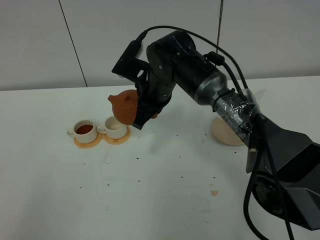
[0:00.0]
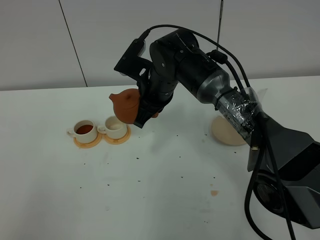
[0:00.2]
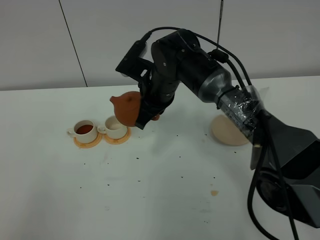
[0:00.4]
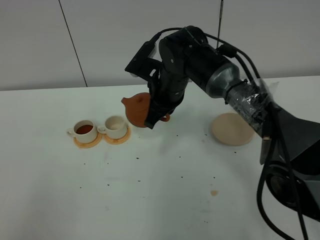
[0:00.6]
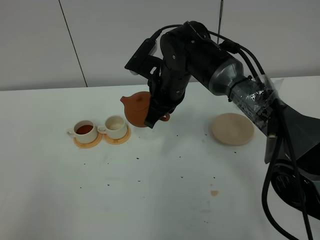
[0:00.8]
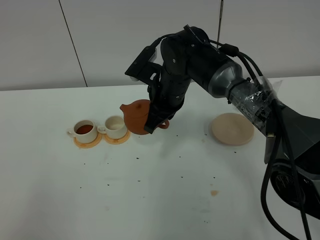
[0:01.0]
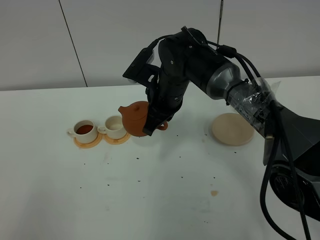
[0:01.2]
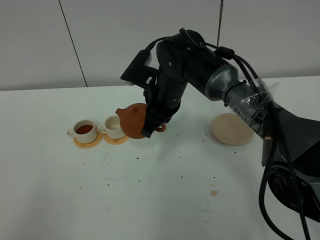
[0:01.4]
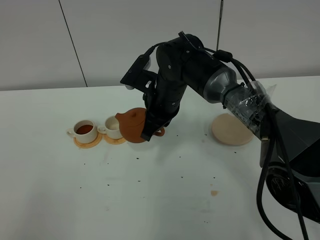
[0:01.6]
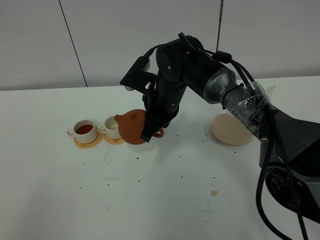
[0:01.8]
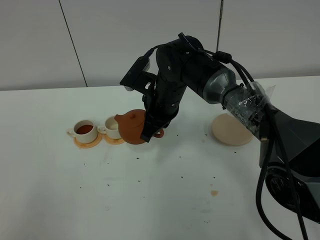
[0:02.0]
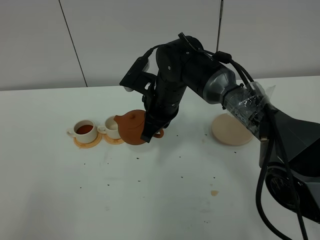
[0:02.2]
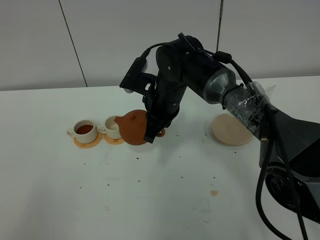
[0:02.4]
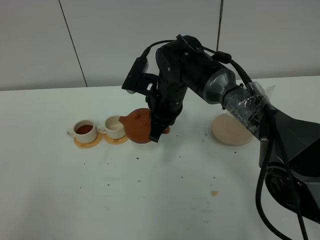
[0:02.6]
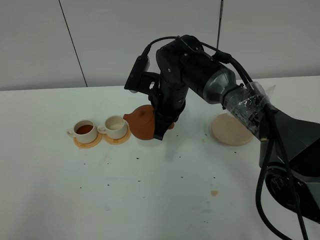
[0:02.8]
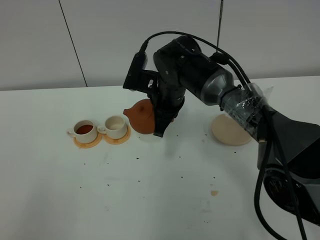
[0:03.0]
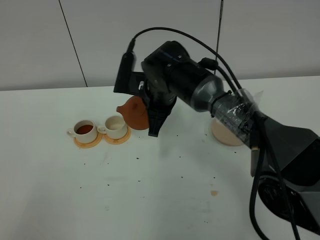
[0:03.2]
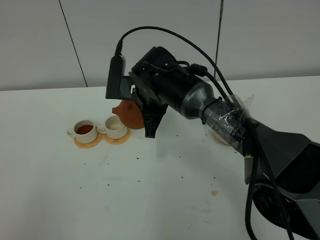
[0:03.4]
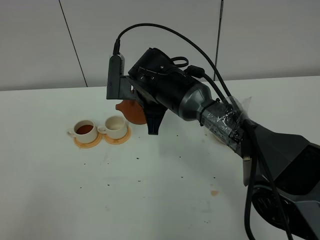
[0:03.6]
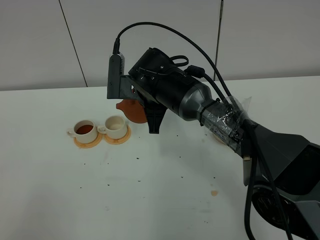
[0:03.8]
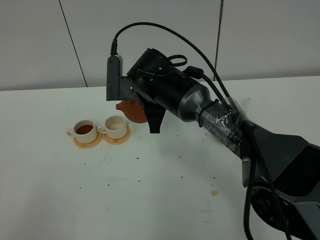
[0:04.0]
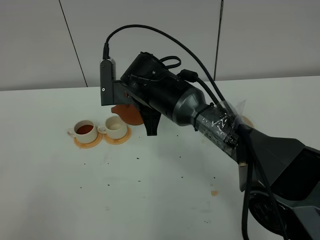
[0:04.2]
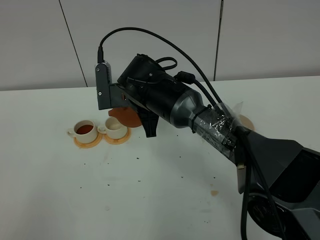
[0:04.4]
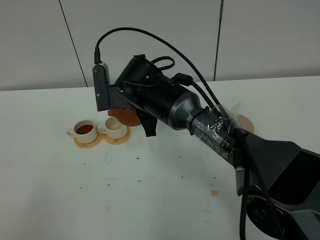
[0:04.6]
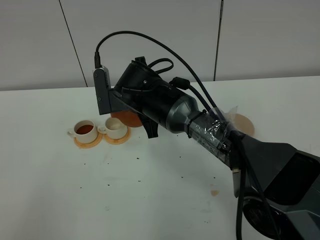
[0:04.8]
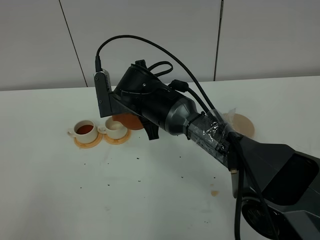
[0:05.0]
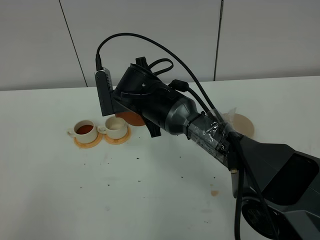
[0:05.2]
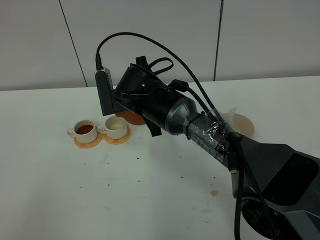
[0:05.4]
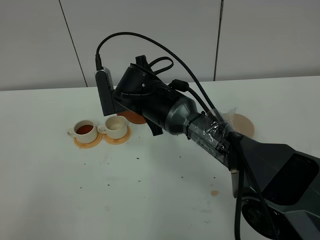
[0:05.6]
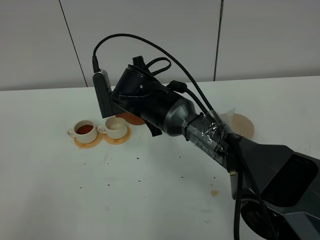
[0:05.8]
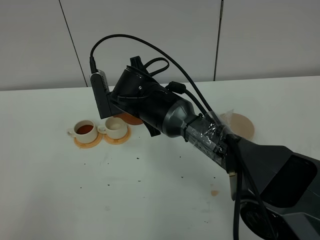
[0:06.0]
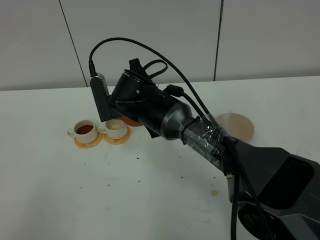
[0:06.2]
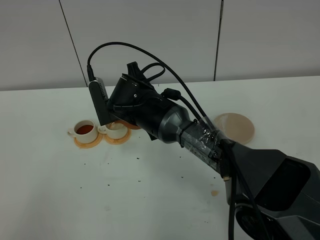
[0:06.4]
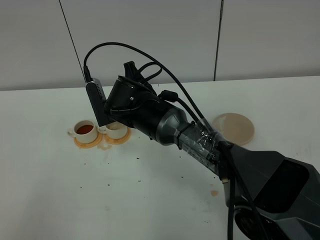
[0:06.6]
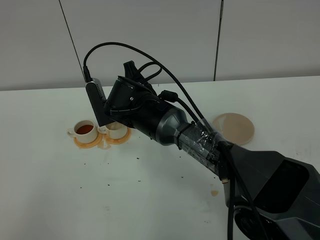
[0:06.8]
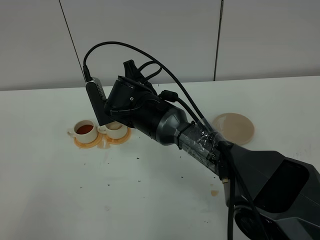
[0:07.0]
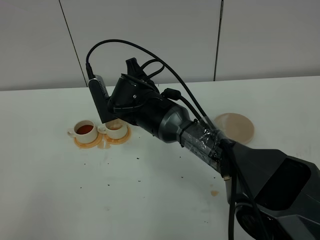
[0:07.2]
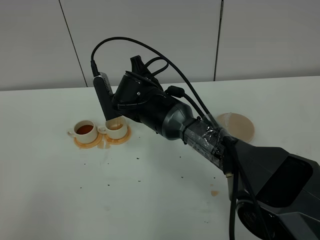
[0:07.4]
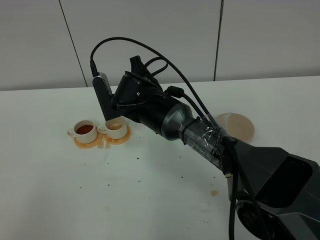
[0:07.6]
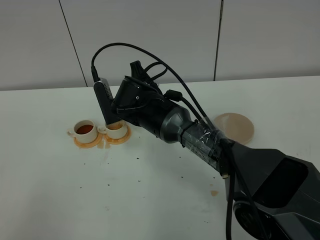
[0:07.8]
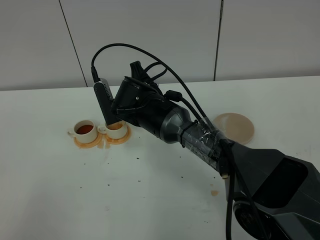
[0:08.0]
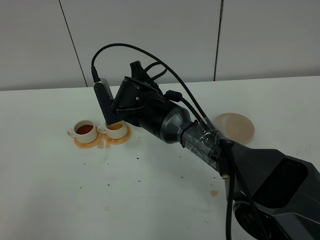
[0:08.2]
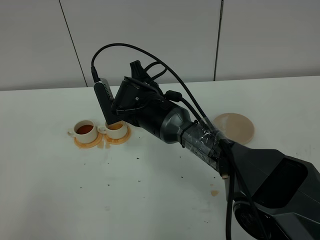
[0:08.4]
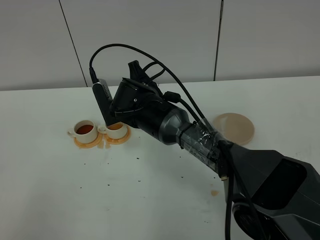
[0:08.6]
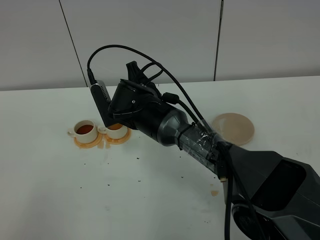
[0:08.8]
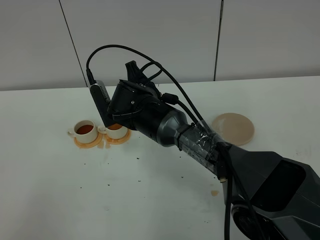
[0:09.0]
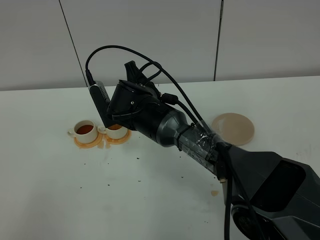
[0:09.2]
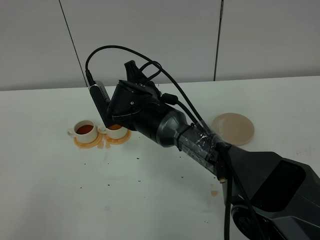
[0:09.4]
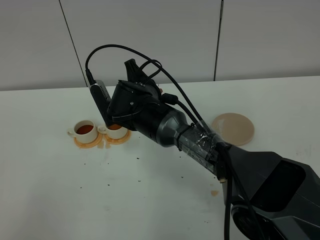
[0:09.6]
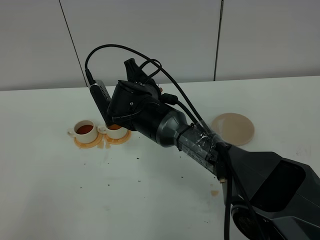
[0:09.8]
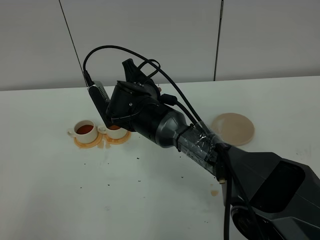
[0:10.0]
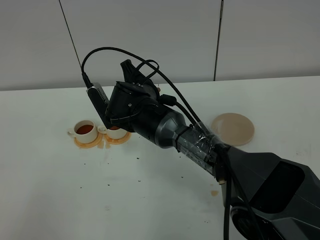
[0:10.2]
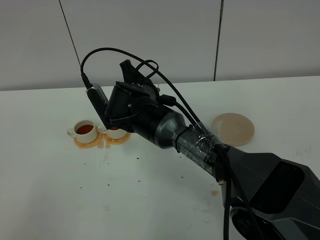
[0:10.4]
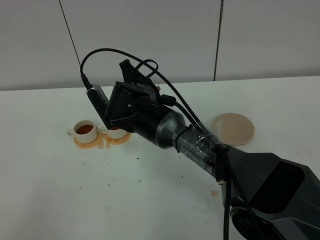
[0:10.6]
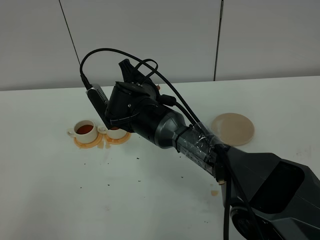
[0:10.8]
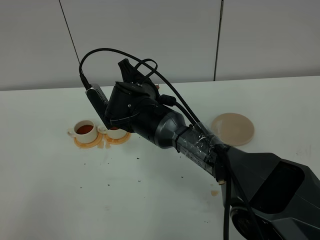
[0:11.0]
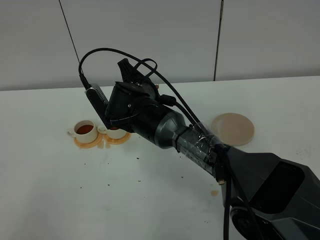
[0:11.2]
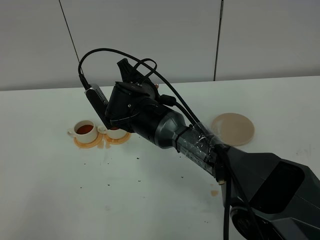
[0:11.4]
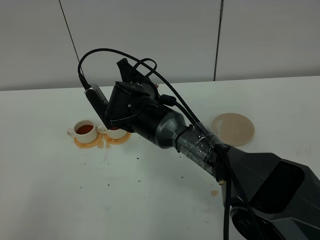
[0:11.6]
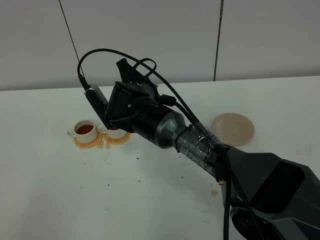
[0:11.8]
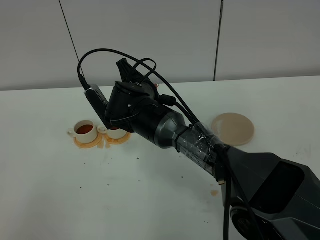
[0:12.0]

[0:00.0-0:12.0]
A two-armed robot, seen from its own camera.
Task of the whole recording: grasp the brown teapot and pour the tea into the two white teacups one by one, put the brown teapot back in its original place.
0:00.0 to 0:03.0: There are only small adjustments of the grippers.
0:03.0 to 0:04.4: The right gripper shifts by some 5 cm.
0:04.4 to 0:07.6: The grippers move only a little.
0:07.6 to 0:09.0: Neither gripper changes place.
0:09.0 to 0:10.4: The grippers move only a little.
0:10.4 to 0:12.0: Both grippers stay about where they are.

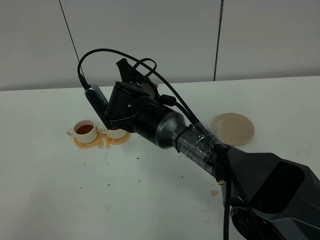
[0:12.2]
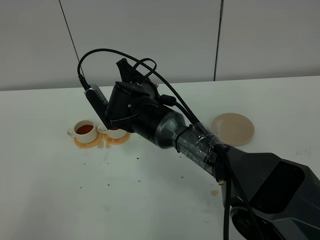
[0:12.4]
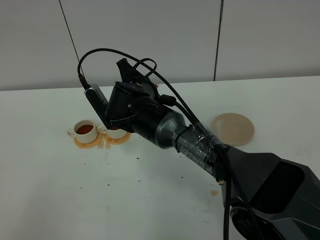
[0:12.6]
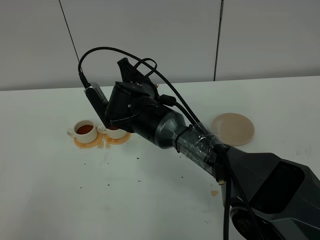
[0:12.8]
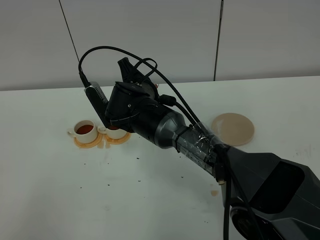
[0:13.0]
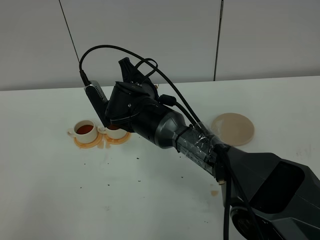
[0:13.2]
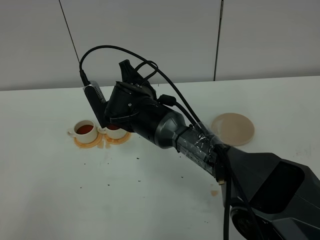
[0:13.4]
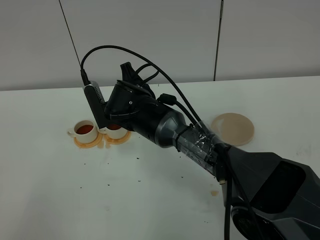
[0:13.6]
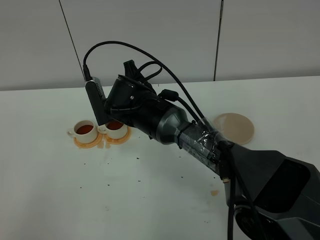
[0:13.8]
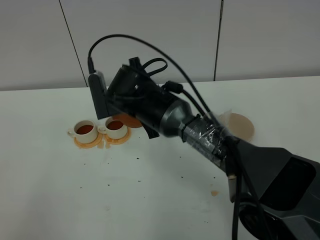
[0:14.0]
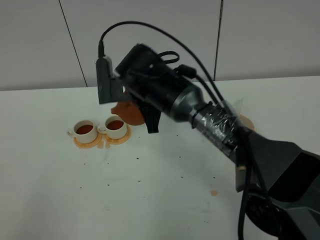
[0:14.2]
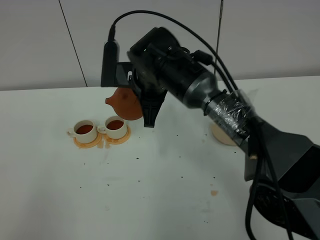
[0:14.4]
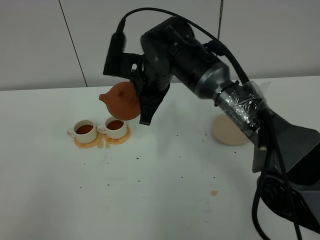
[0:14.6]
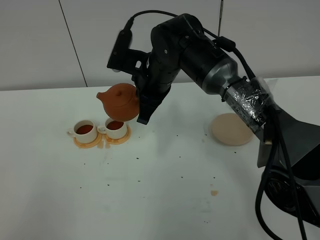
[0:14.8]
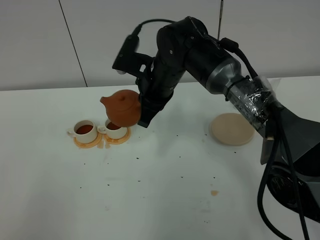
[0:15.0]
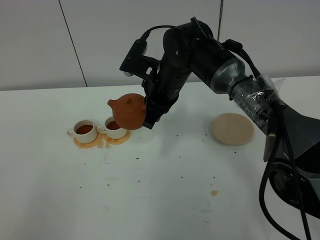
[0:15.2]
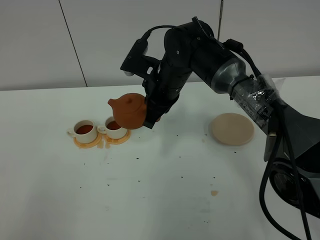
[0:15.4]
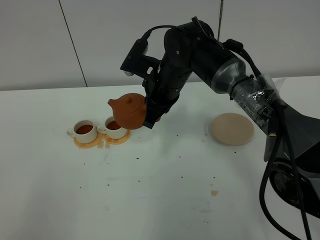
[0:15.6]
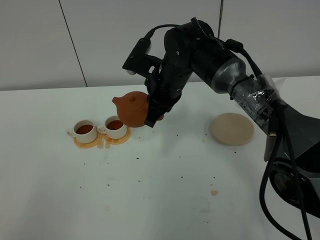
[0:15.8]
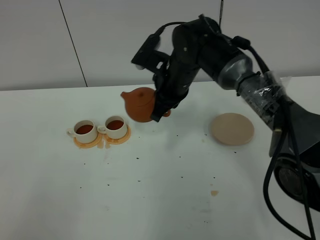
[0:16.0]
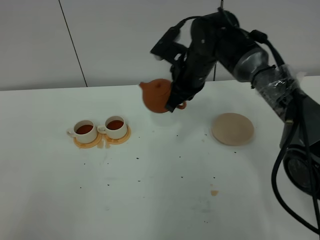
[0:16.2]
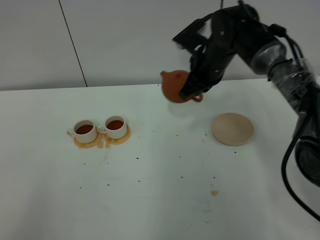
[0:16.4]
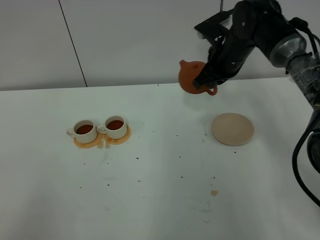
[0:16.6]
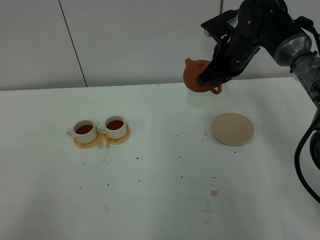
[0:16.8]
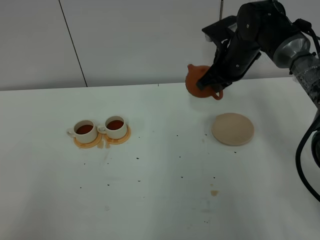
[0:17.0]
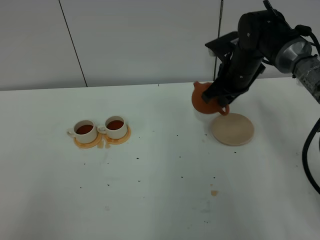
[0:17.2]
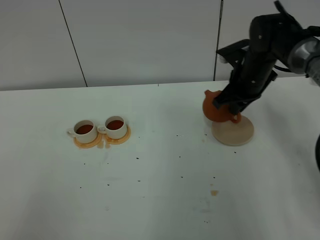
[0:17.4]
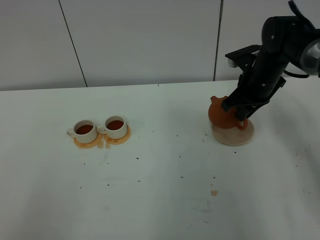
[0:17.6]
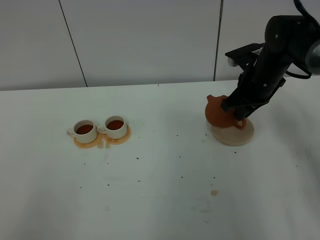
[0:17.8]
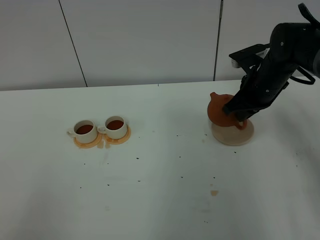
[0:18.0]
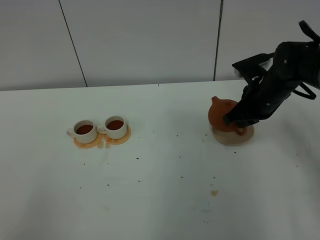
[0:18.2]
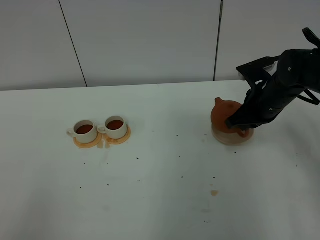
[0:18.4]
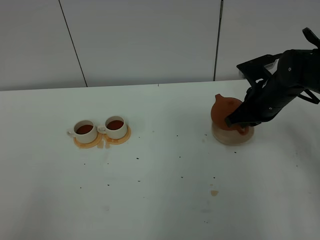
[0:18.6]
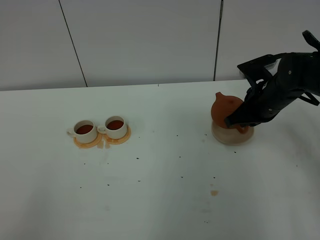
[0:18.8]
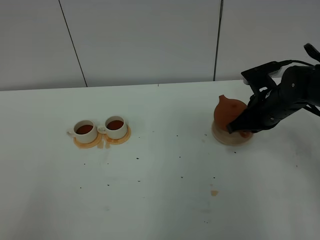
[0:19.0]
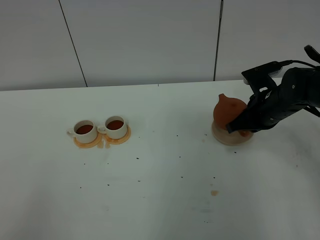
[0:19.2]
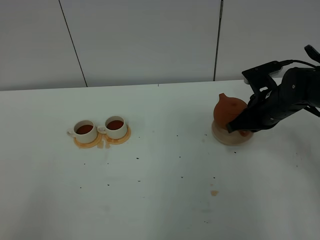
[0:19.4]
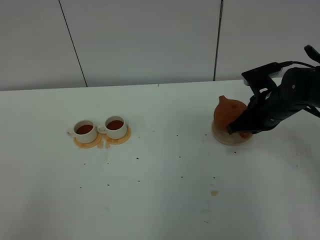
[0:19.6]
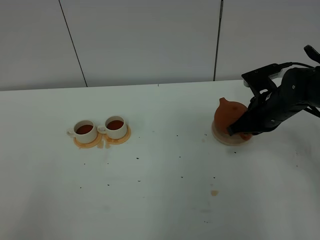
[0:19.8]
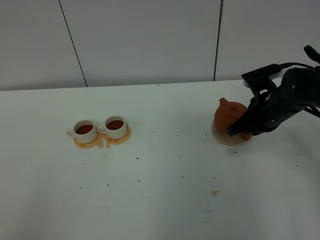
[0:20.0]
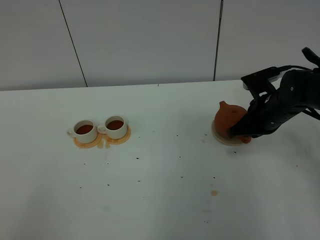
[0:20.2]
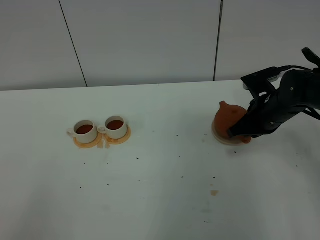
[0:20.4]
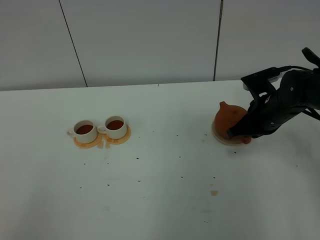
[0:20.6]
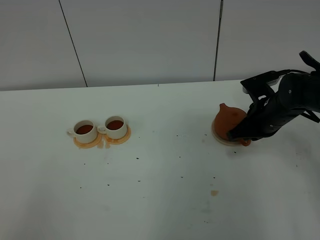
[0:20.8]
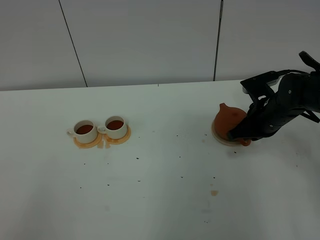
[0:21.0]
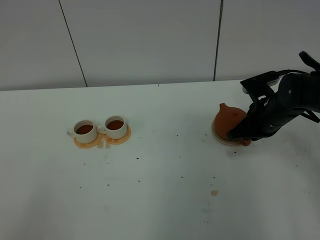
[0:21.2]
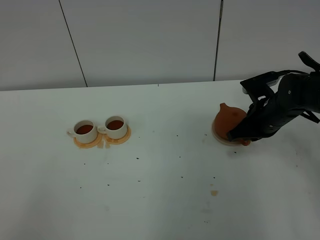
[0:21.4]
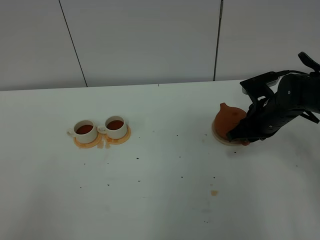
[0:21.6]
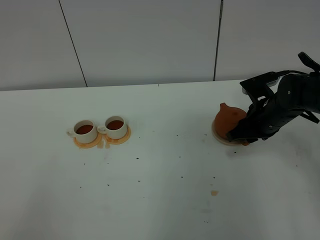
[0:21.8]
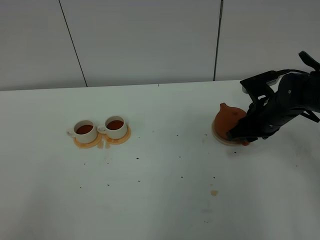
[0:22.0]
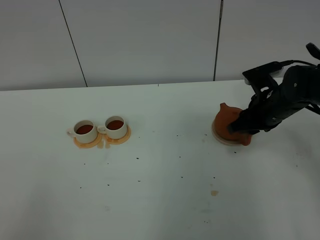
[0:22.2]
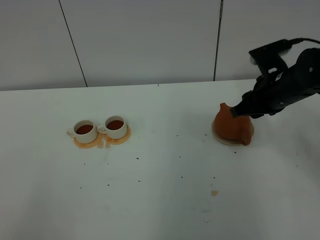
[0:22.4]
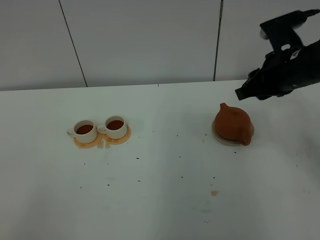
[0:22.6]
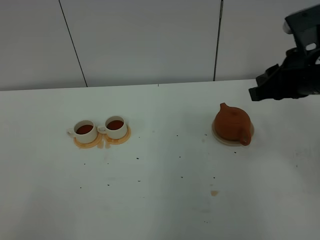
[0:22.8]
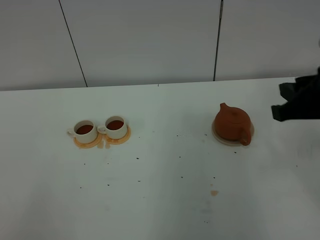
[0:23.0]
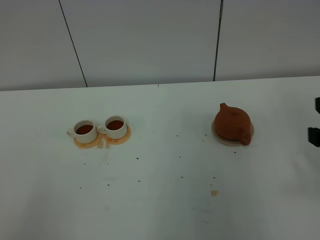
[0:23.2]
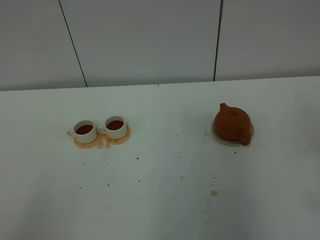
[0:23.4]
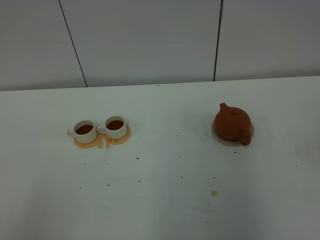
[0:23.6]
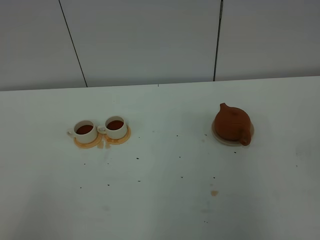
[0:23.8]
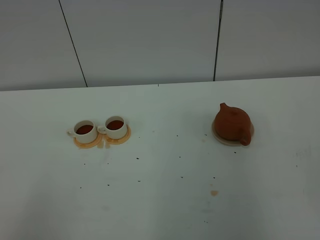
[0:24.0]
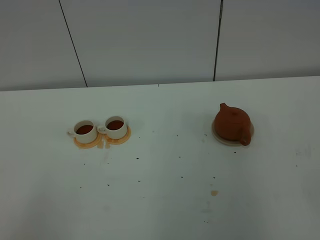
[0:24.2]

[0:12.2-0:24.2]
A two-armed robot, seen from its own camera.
Task of the whole recording: grasp the brown teapot and pour the tea into the two white teacups one by one, put the brown teapot back in its original place.
Step, 0:12.2 to 0:14.8: Pour tea into the teacup with the right gripper.
0:12.2 to 0:13.8: The grippers move only a little.
0:13.8 to 0:15.2: The right gripper is displaced to the right by about 5 cm.
0:15.2 to 0:16.6: The right gripper goes some 15 cm to the right and forward.
0:16.6 to 0:18.2: The right gripper heads backward, to the right and downward, covering roughly 10 cm.
0:18.2 to 0:21.2: The grippers move only a little.
0:21.2 to 0:22.6: The right gripper goes roughly 15 cm upward, and opens its fingers.
0:22.6 to 0:24.2: The right gripper is displaced backward by some 35 cm.
